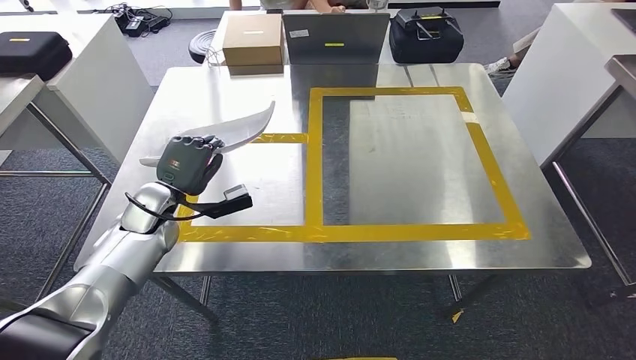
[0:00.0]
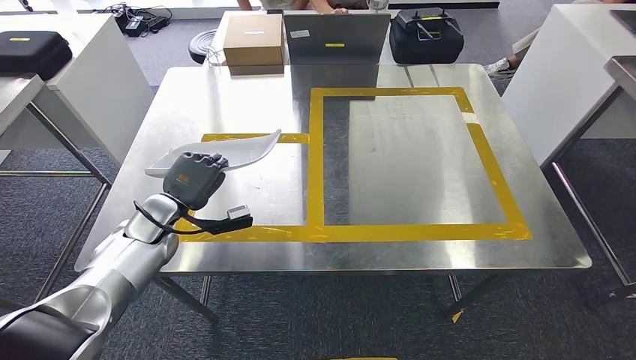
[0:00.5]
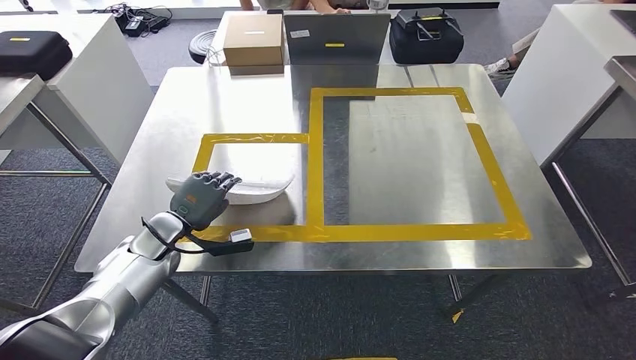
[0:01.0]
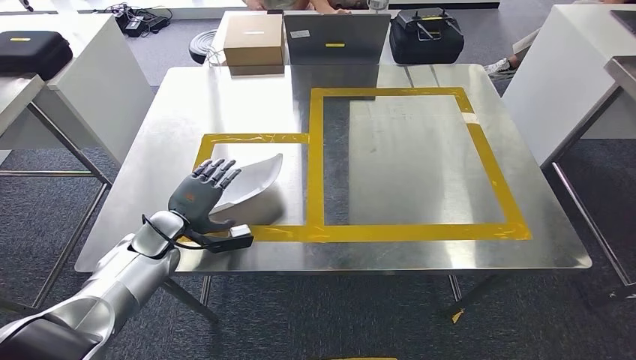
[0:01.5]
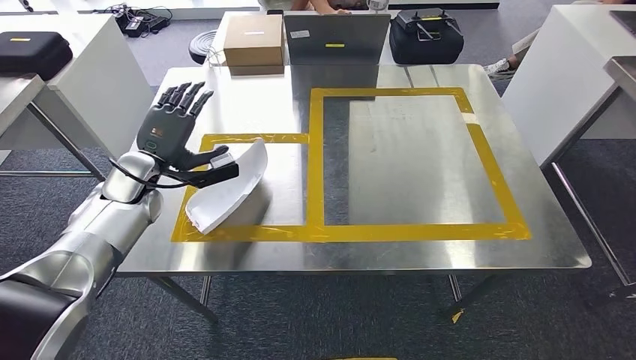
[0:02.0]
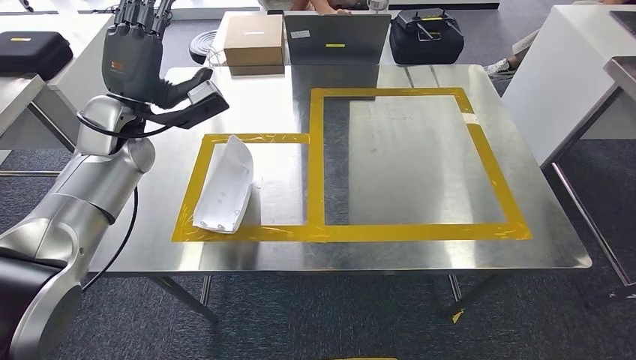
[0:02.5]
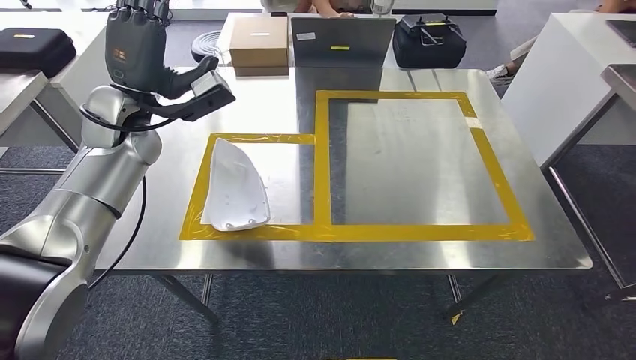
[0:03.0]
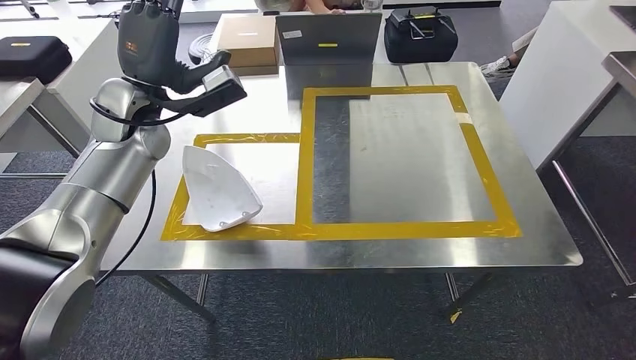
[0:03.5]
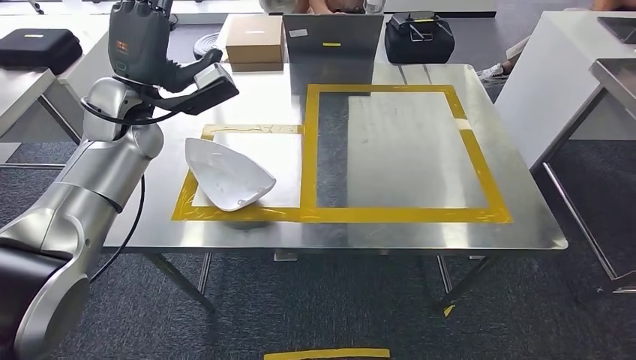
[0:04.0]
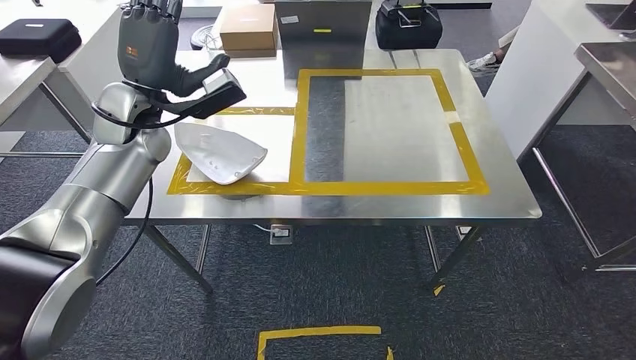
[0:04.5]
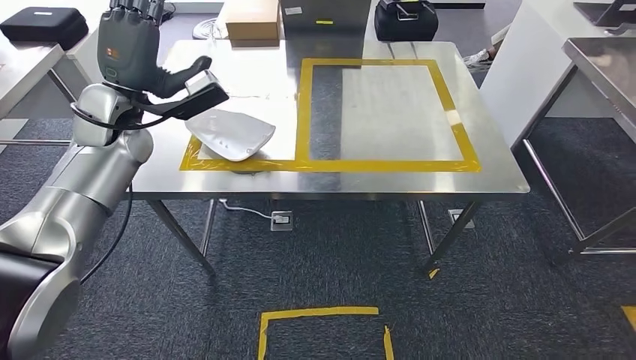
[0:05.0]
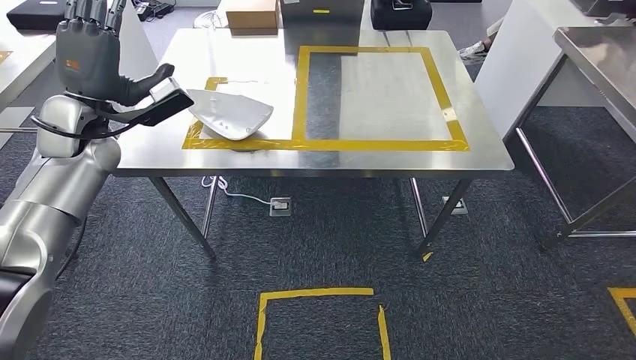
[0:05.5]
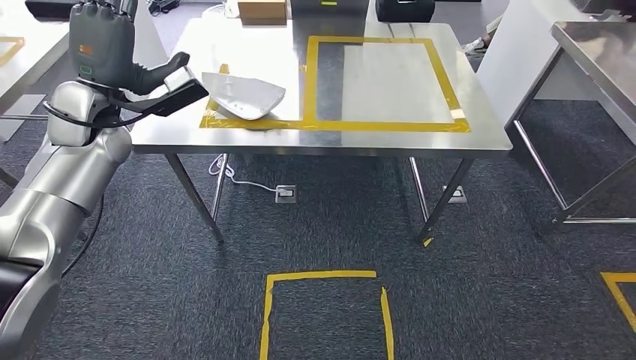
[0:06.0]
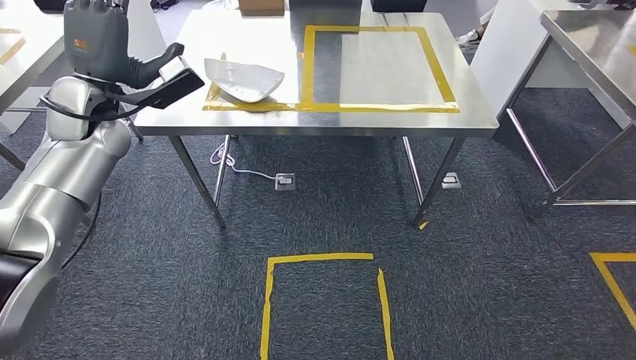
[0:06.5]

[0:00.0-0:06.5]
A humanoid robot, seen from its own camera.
Step, 0:00.0 to 0:03.0: Insert the small component into the corresponding slot on the workbench.
Step, 0:04.5 to 0:06.5: Return to the initial position at the workbench.
0:00.0 to 0:02.0: The left hand moves about 5 cm.
